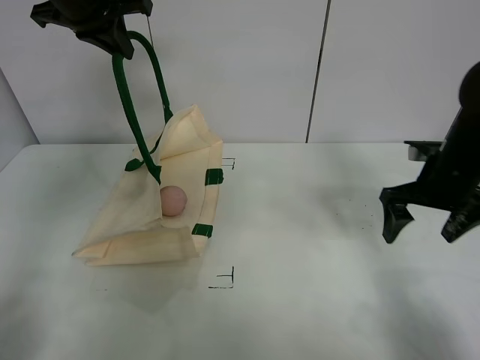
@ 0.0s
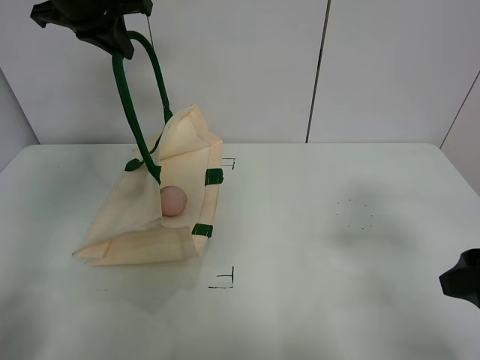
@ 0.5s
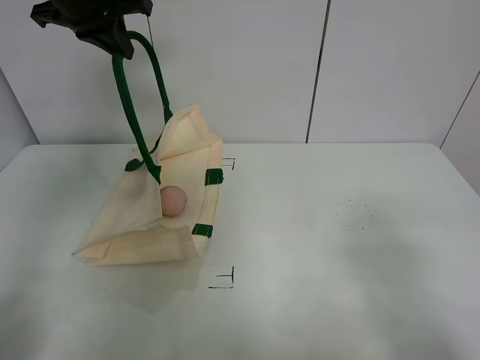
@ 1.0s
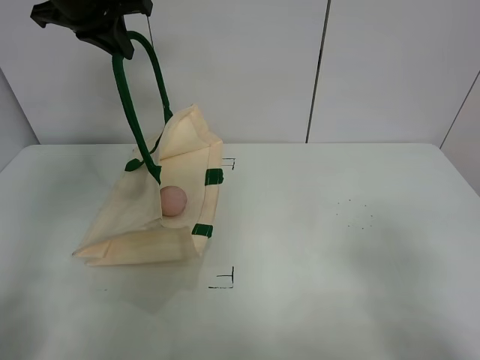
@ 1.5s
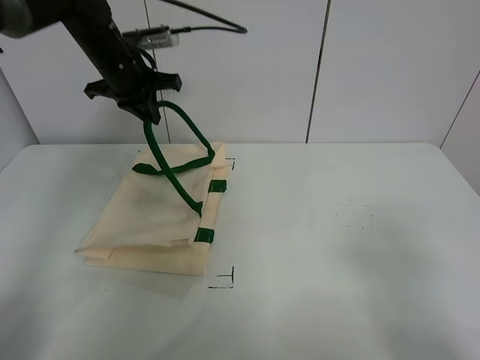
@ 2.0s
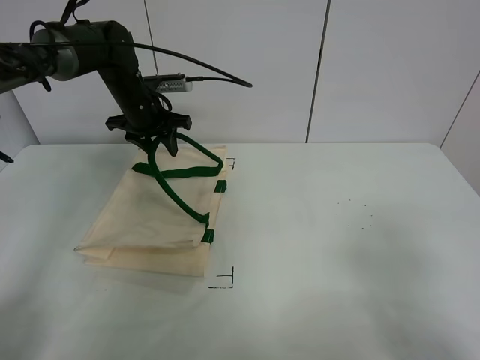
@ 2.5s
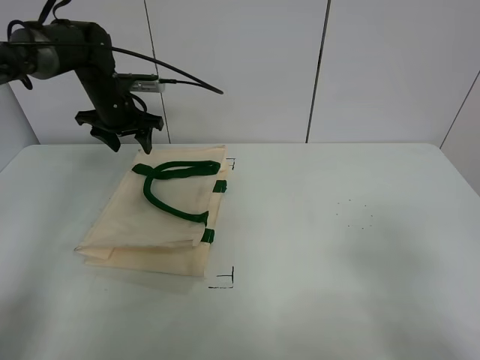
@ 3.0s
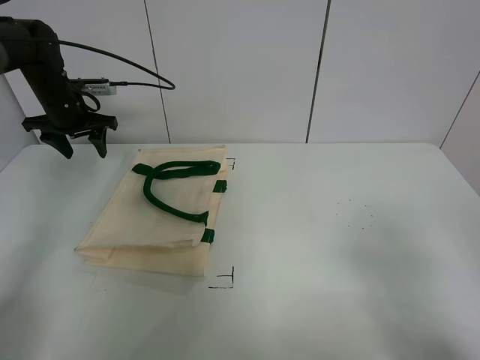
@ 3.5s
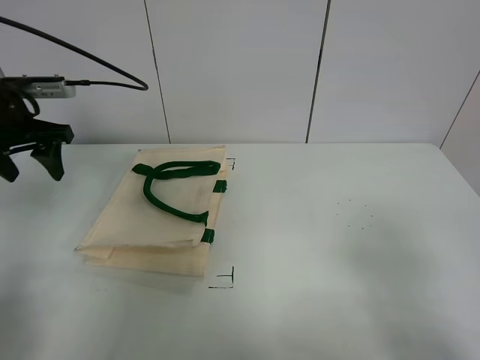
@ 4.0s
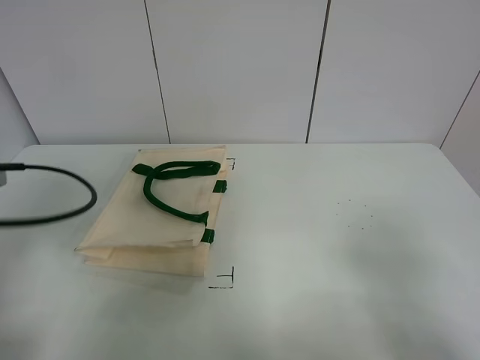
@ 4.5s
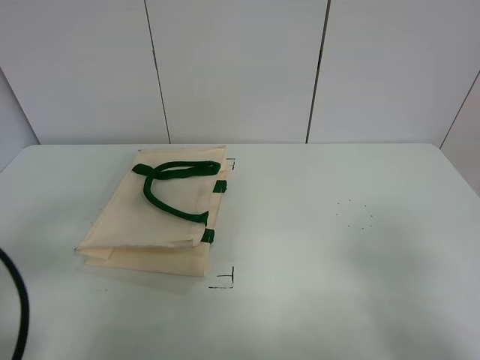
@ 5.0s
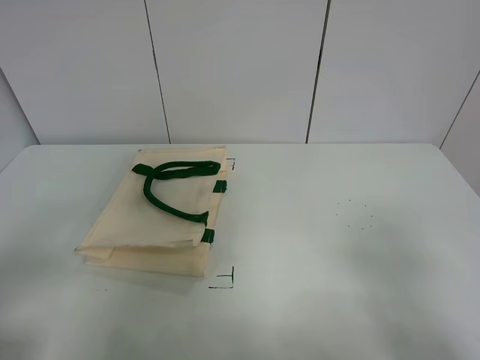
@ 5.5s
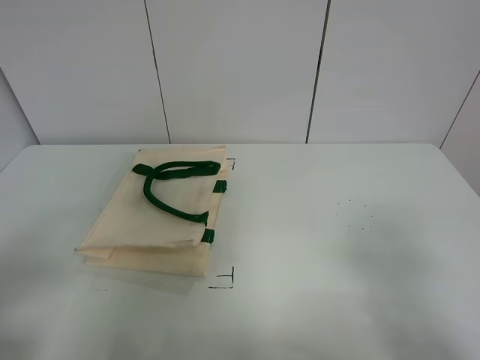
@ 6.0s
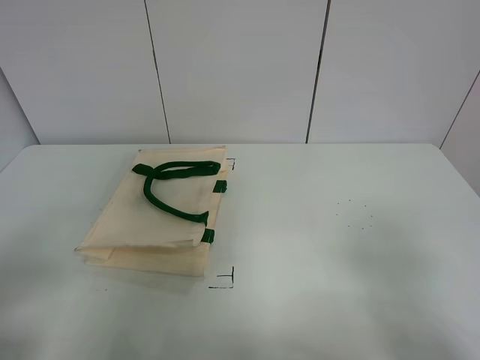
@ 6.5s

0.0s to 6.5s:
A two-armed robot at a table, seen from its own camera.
Task of the whole recording: open the white linen bag and put the peach in the bag.
Step, 0.0s to 2.5s: Put down the handbag with left gripper.
0.0s to 2.0s: The right gripper goes about 25 cm backward; the left gripper goes roughly 15 cm downward.
2.0s to 4.5s: The left gripper shifts about 35 cm backward and to the left, and opens.
4.5s to 6.5s: The left gripper moves backward, about 15 cm.

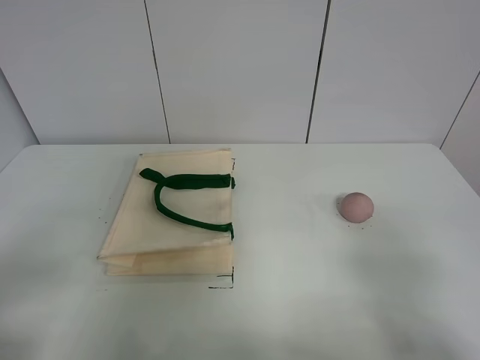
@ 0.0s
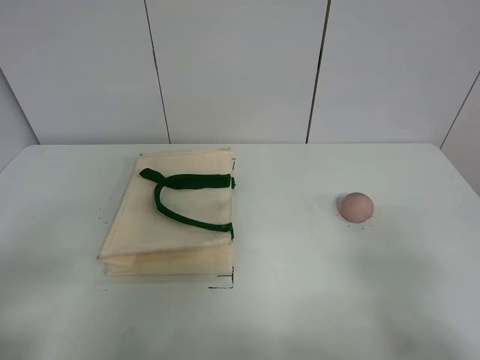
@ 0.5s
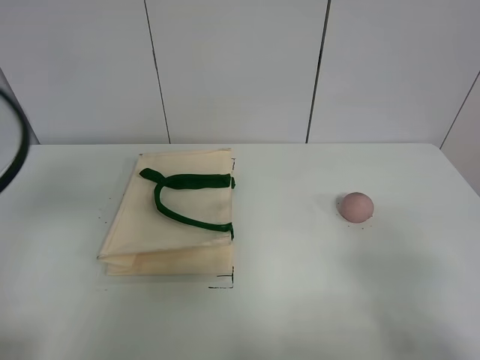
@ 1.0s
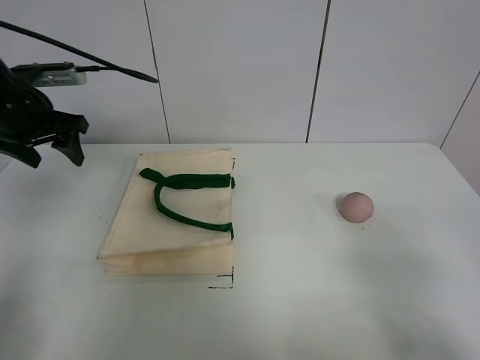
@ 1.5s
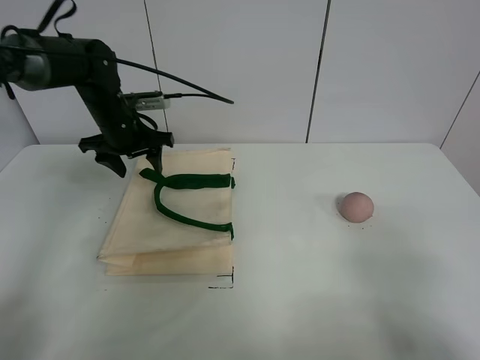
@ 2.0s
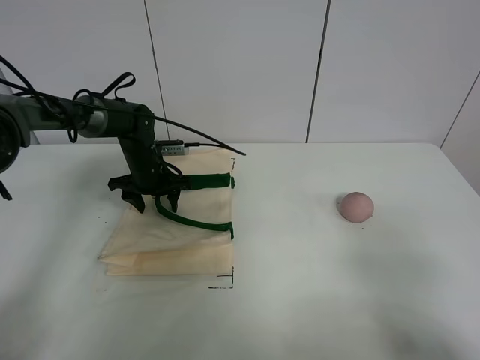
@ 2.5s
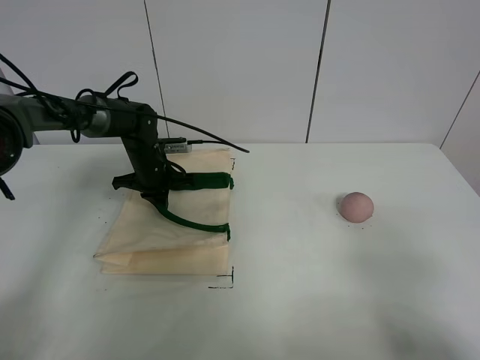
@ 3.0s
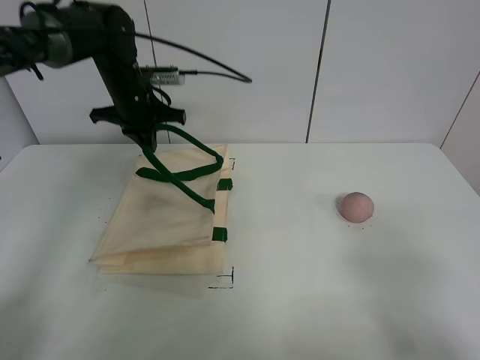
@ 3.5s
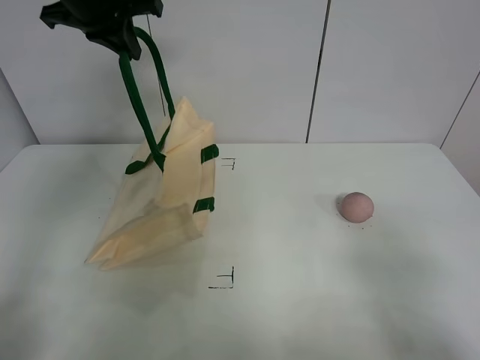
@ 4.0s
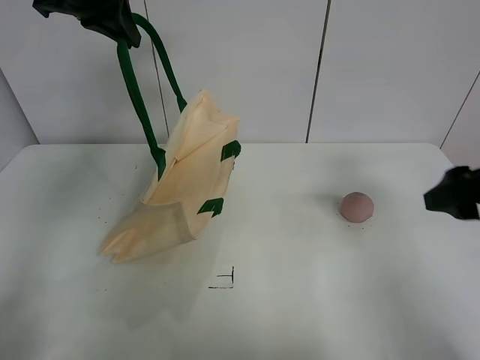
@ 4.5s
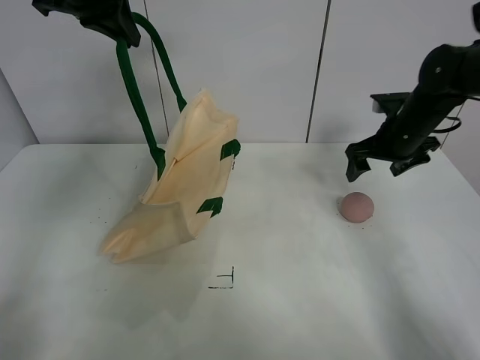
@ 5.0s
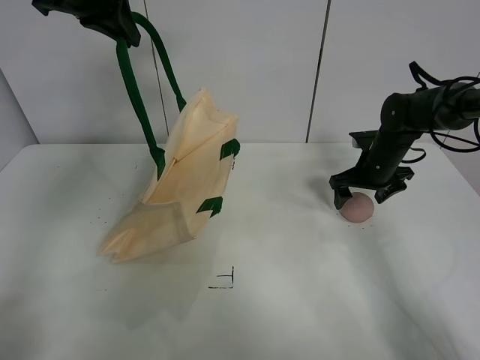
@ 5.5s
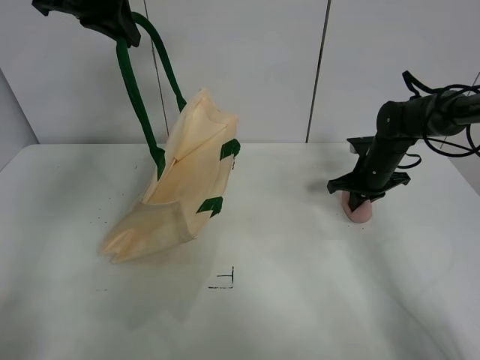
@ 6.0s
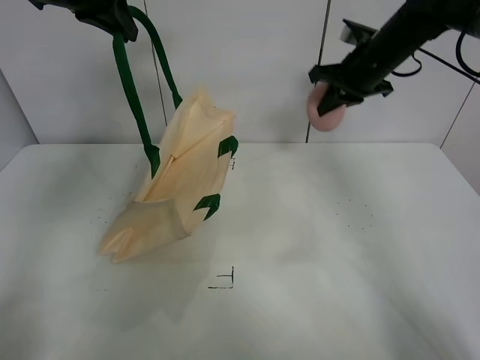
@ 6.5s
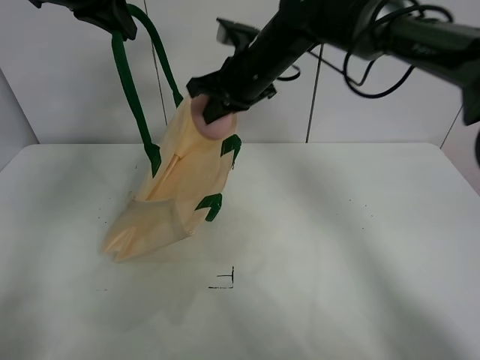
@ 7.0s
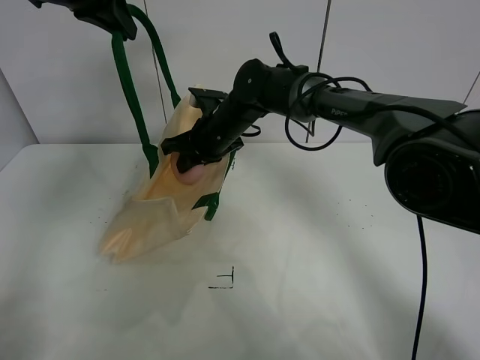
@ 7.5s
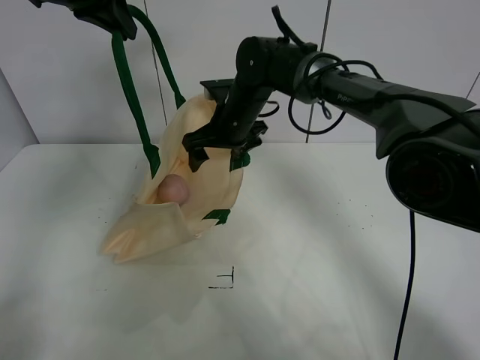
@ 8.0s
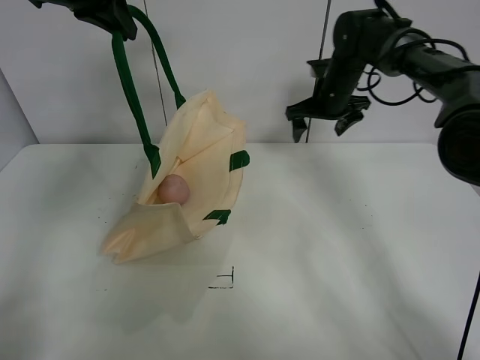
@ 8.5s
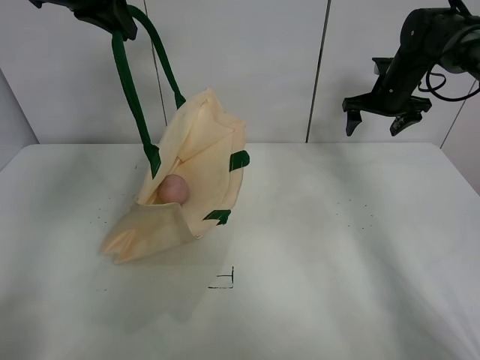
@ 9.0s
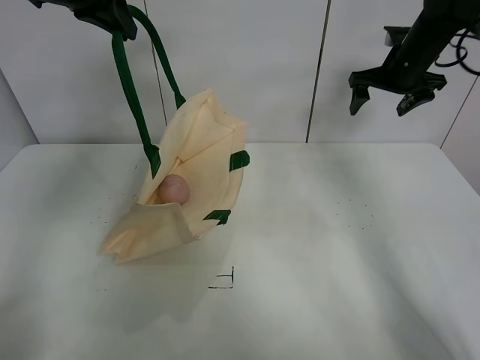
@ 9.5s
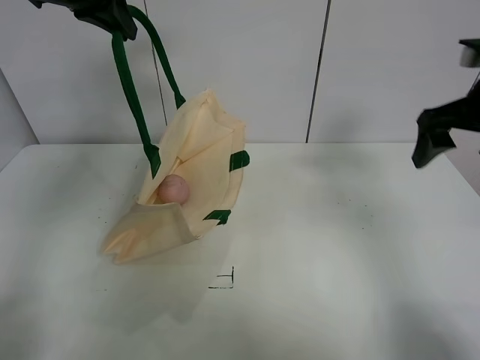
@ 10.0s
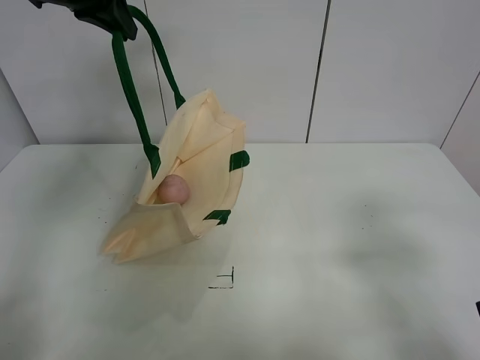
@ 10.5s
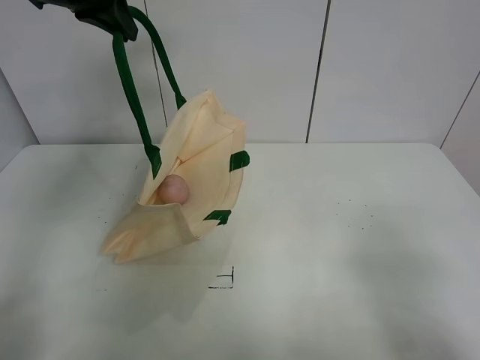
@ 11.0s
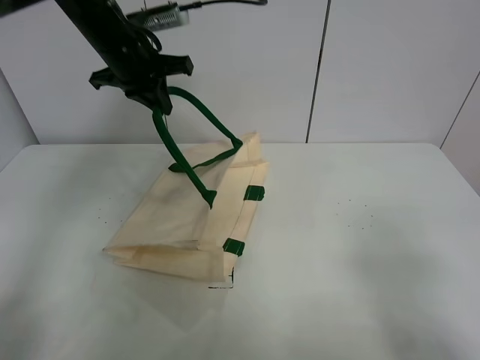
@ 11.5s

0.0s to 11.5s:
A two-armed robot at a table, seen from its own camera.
Task of the whole recording: open the white linen bag and put the peach in the bag.
Step, 0.0s to 4.0s: Lift the handbag with left gripper.
Step, 4.5s to 6.0s: Grasp the peach with right gripper.
Step, 6.5s to 7.5s: Place the peach in the handbag with right gripper.
2.0s to 4.0s: The left gripper travels upward by roughly 15 cm, and closes up.
4.0s to 6.0s: The right gripper goes approximately 40 cm forward, and closes its fingers.
6.0s to 7.5s: The right gripper heads to the left, covering approximately 30 cm, and closes up.
7.5s to 9.5s: The right gripper heads to the right, covering roughly 30 cm, and opens.
9.5s to 11.5s: The left gripper travels downward by approximately 10 cm, while the right gripper goes approximately 50 cm backward.

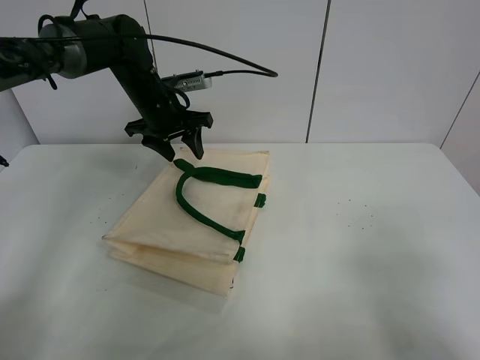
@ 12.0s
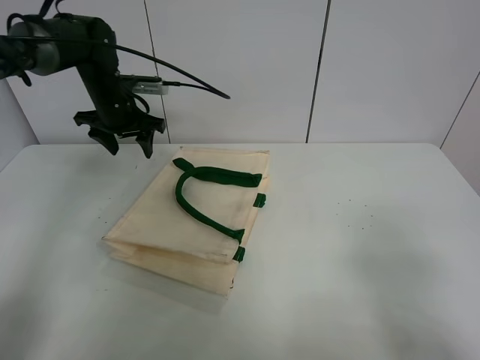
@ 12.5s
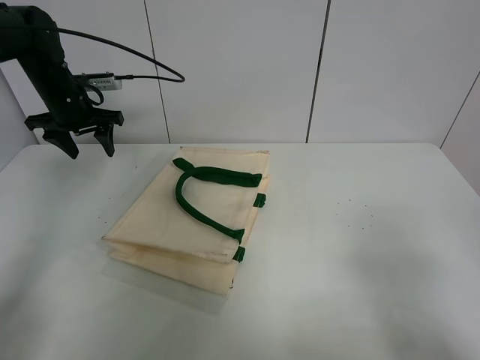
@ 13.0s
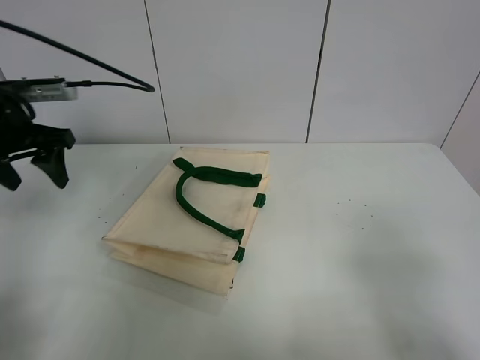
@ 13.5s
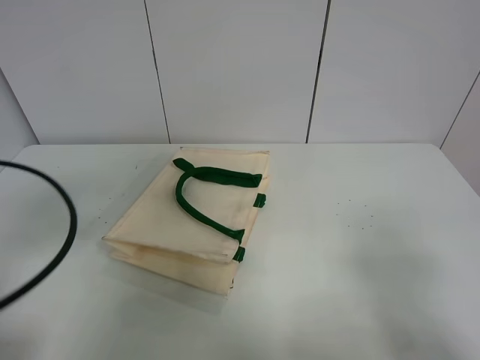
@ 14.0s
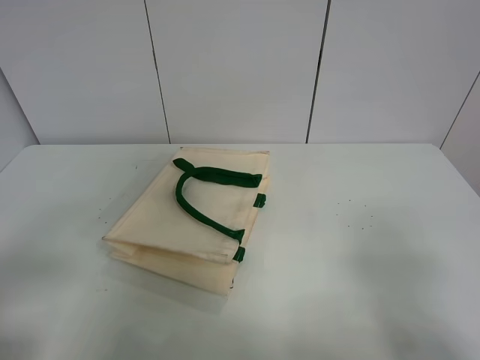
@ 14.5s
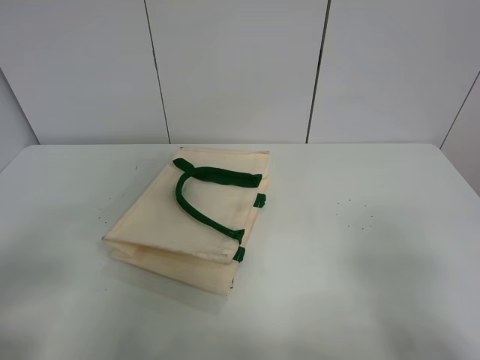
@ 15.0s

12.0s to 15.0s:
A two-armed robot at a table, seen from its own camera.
Task of the whole recording: open the white linen bag and put the peach in the bag.
12.0s to 13.5s: The left gripper is displaced to the left and backward by roughly 20 cm.
13.5s to 15.0s: The left gripper goes approximately 35 cm backward.
